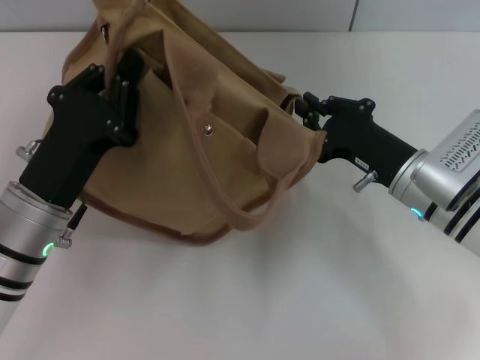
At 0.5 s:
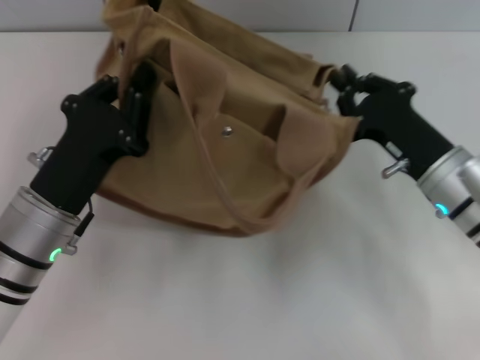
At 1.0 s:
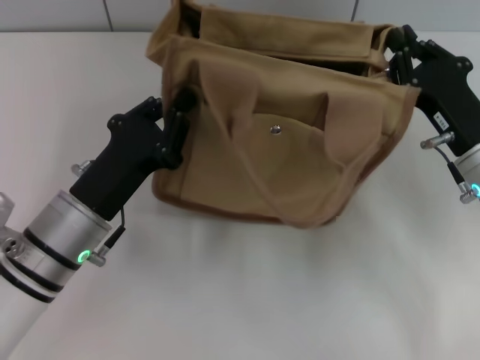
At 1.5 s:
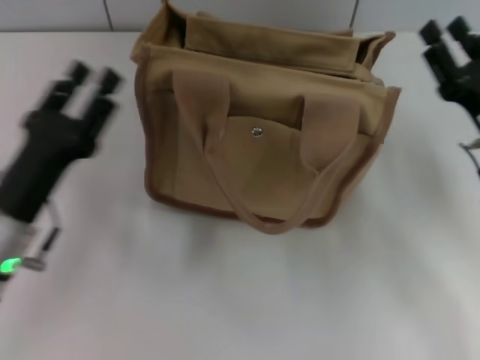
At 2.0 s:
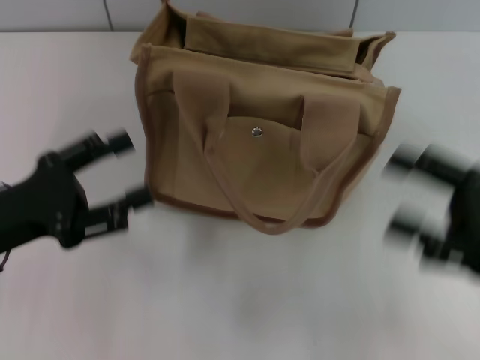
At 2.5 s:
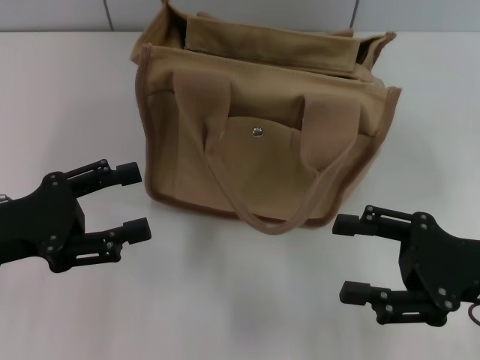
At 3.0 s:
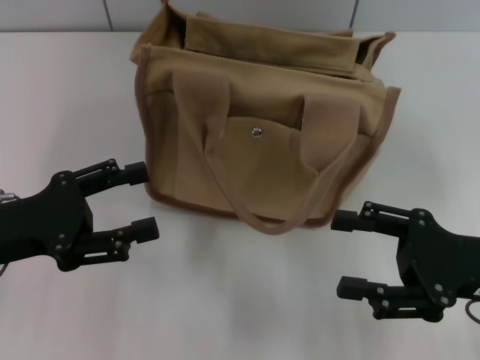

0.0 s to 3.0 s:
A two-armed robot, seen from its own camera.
0.0 to 1.5 s: The right gripper is displaced to the right by some 5 cm; the left gripper opens up.
1.5 to 3.0 s: The right gripper moves backward, some 5 cm, and opens up, while the left gripper travels to the left by approximately 5 cm, and opens up.
